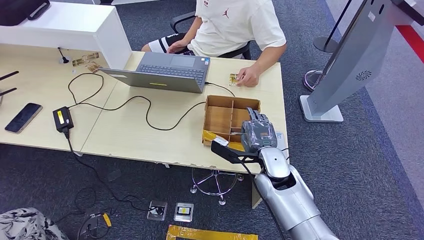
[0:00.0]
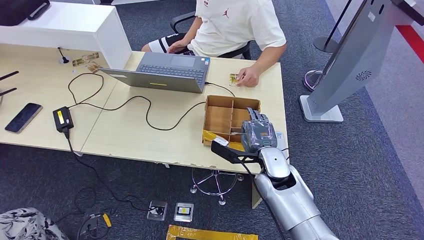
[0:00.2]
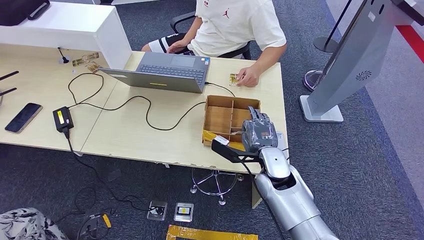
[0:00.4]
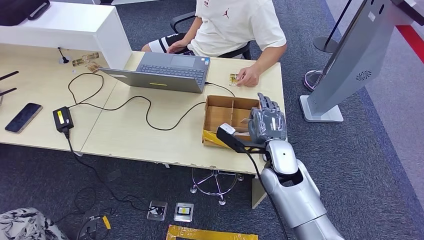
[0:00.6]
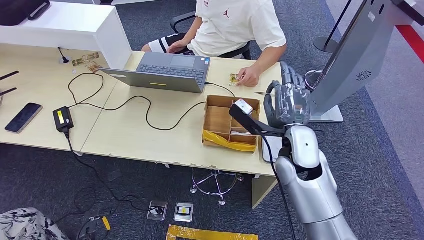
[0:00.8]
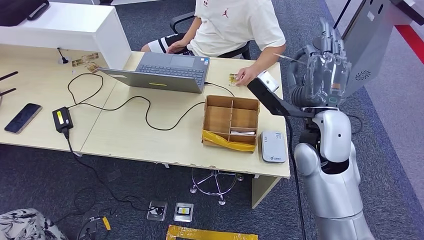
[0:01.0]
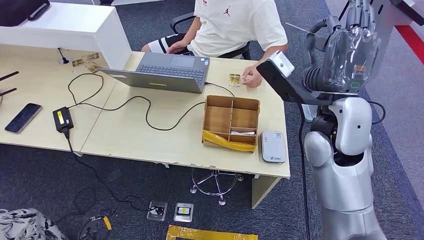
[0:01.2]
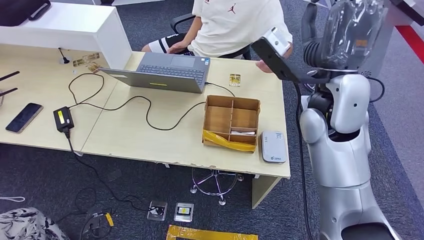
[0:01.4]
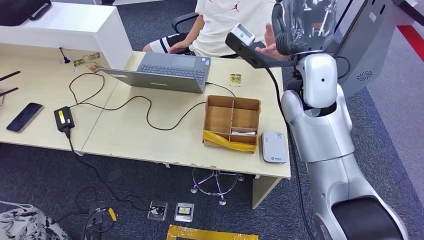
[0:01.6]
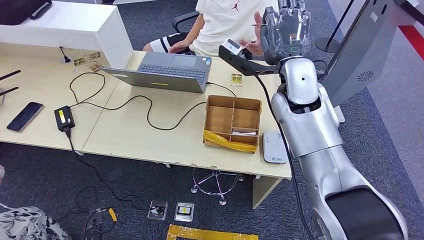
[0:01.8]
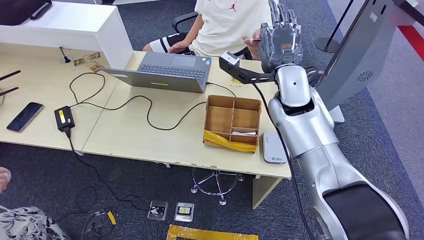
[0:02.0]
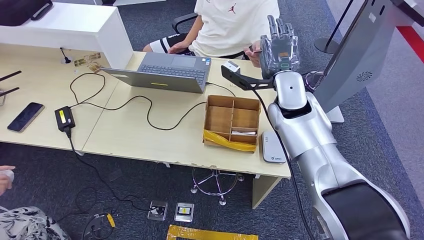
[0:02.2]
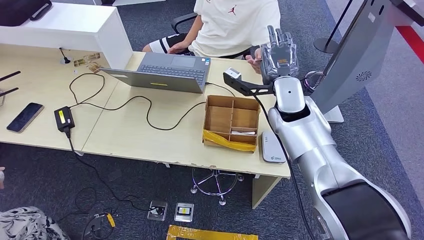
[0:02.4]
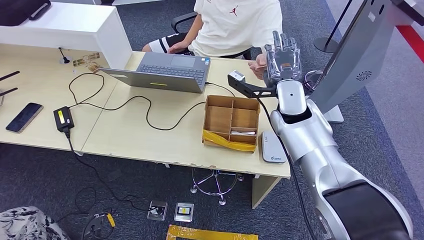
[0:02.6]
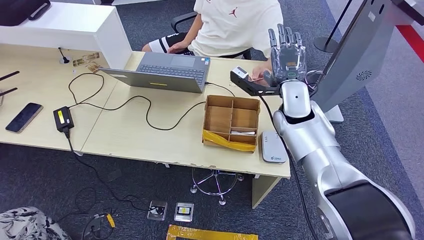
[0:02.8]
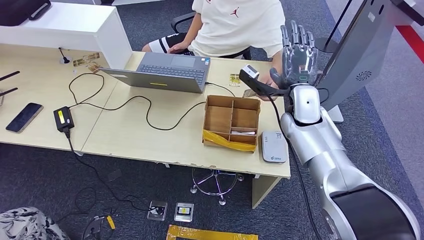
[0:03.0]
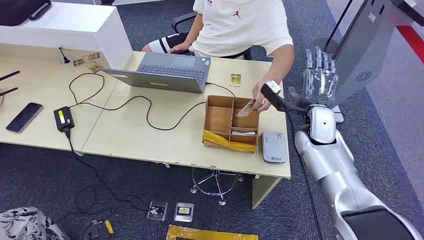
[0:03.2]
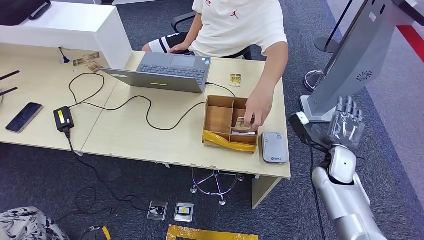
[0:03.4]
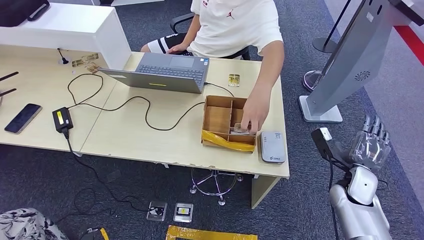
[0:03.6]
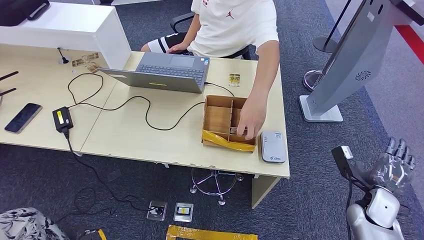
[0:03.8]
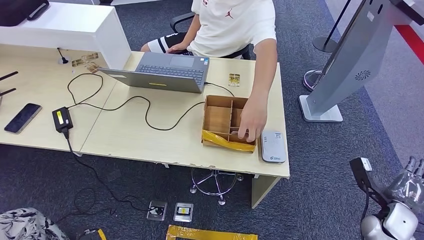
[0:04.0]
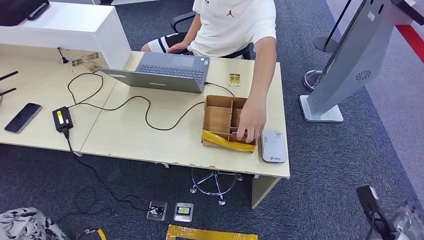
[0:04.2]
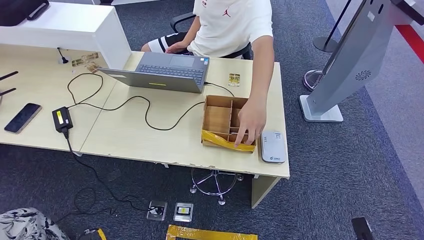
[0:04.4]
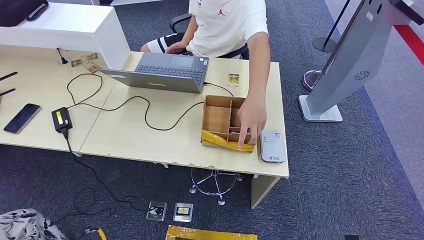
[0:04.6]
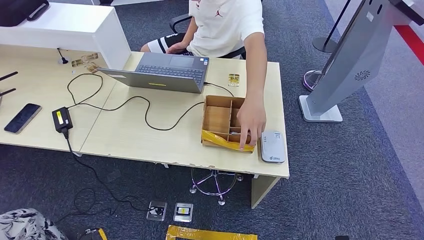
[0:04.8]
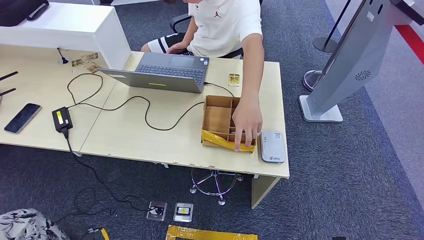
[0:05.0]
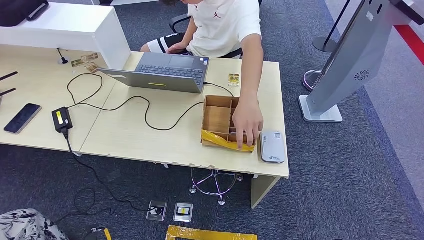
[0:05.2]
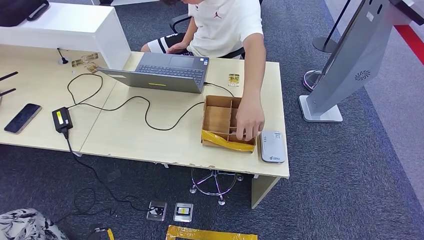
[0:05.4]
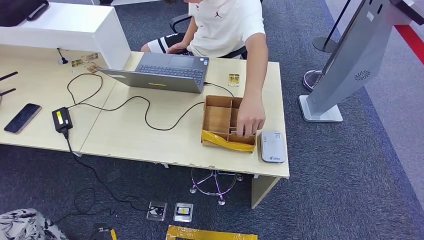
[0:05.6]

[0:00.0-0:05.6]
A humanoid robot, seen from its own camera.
Step, 0:01.8 to 0:05.6: Hand the room key to the person.
0:01.4 to 0:02.8: The right hand shifts approximately 15 cm downward and forward.
0:02.8 to 0:04.2: The right hand goes about 50 cm to the right, downward and backward.
0:04.2 to 0:05.6: The right hand goes about 20 cm backward, to the left and downward.
